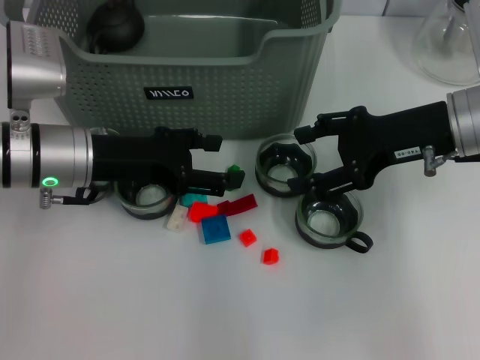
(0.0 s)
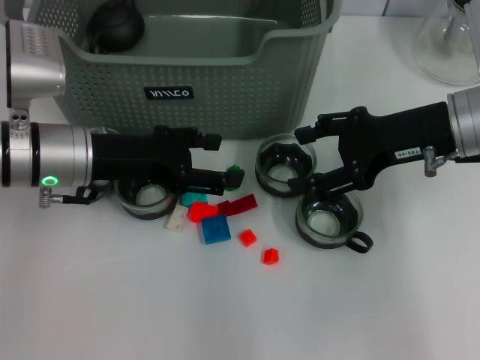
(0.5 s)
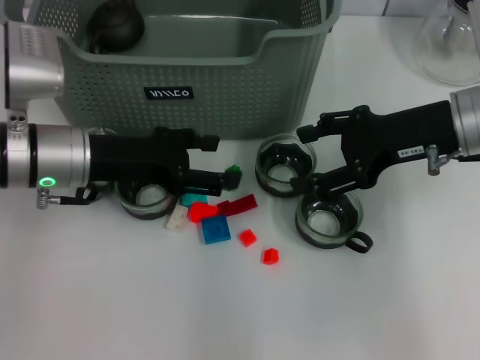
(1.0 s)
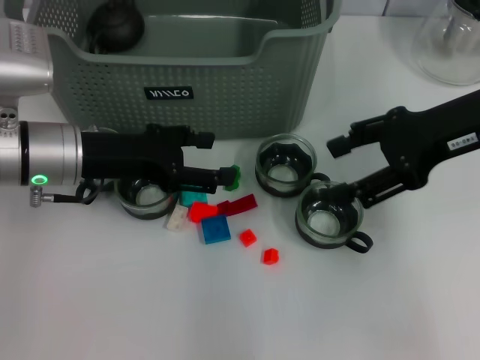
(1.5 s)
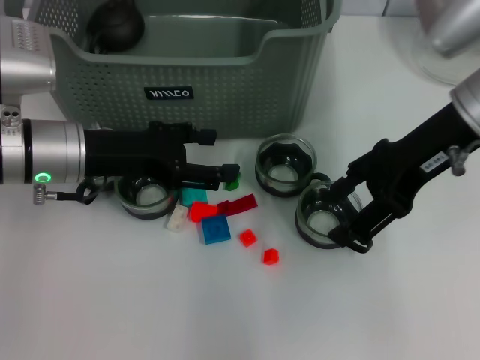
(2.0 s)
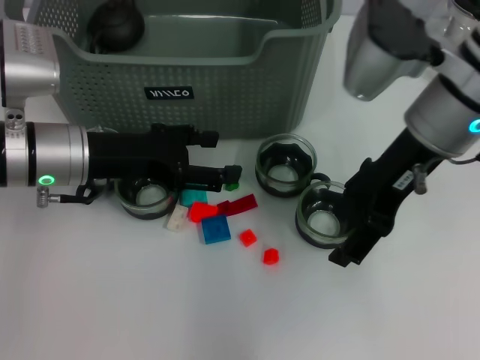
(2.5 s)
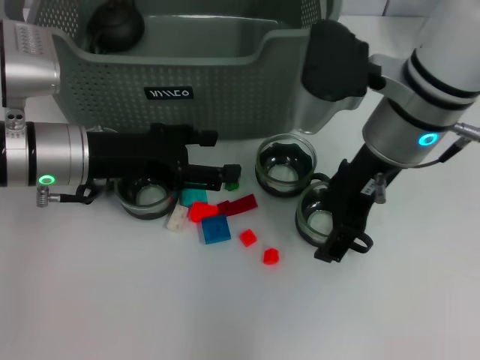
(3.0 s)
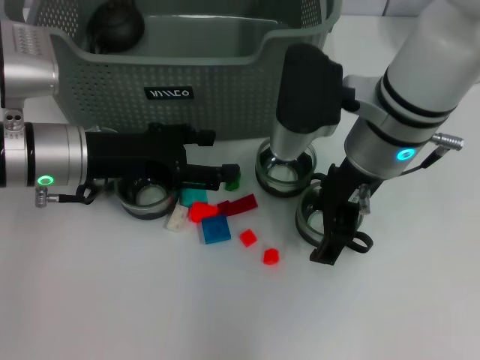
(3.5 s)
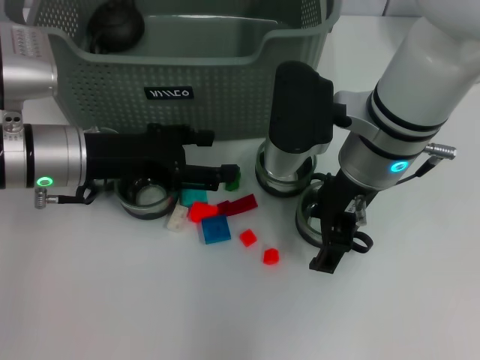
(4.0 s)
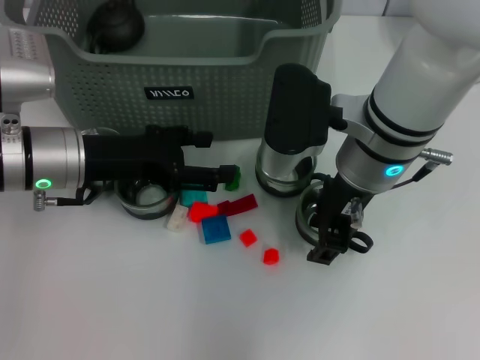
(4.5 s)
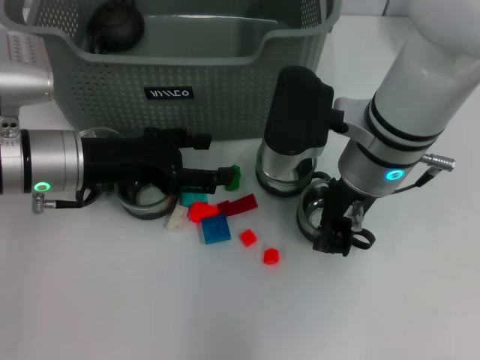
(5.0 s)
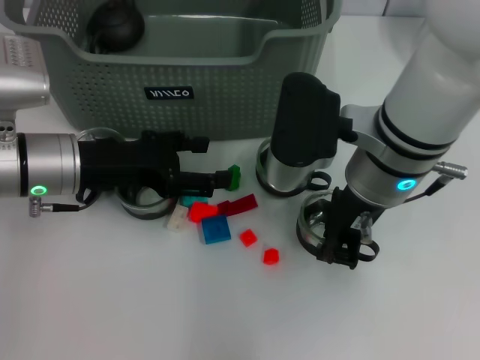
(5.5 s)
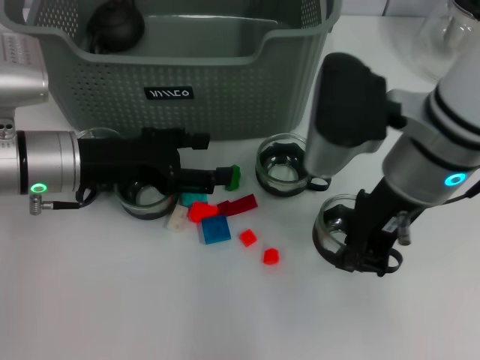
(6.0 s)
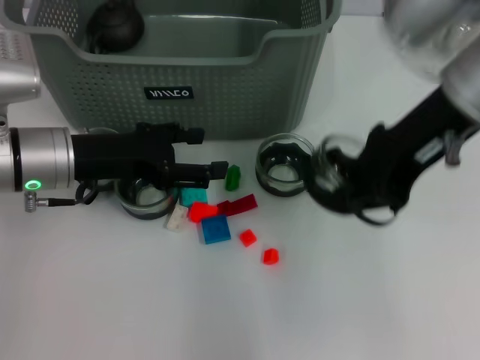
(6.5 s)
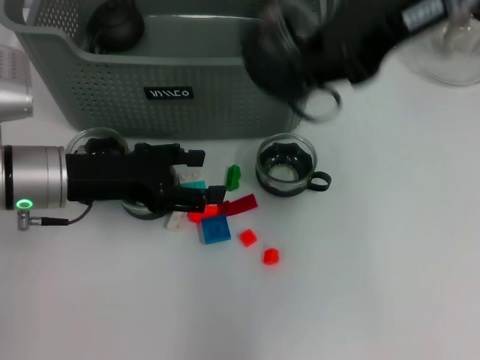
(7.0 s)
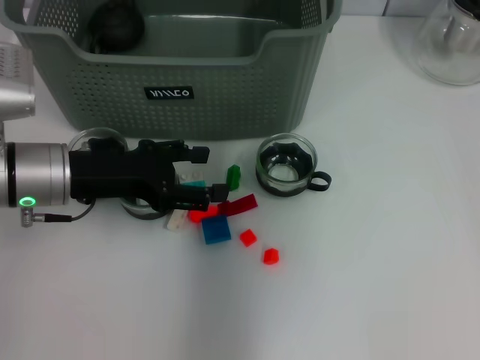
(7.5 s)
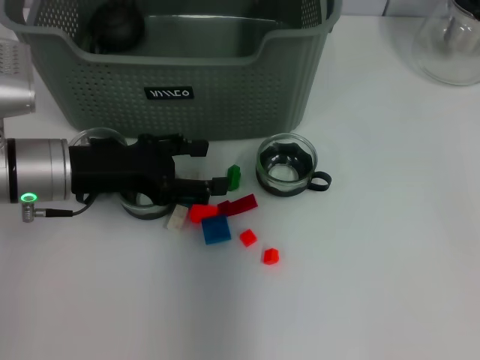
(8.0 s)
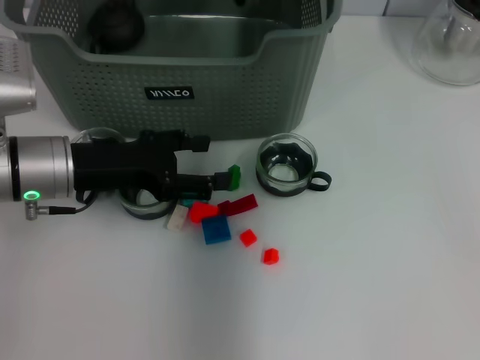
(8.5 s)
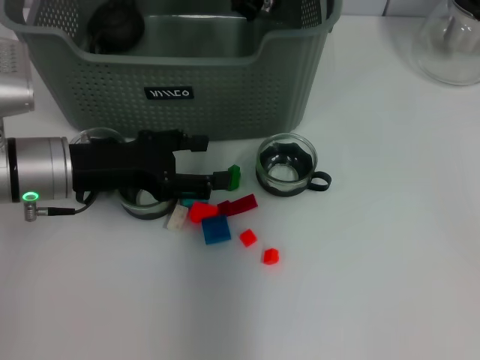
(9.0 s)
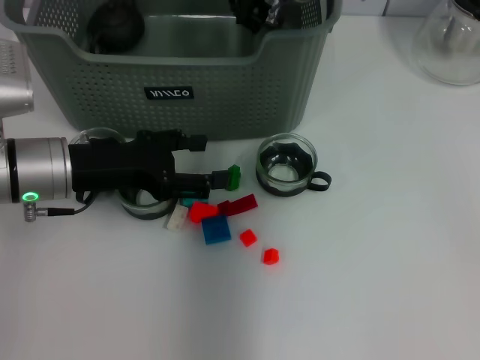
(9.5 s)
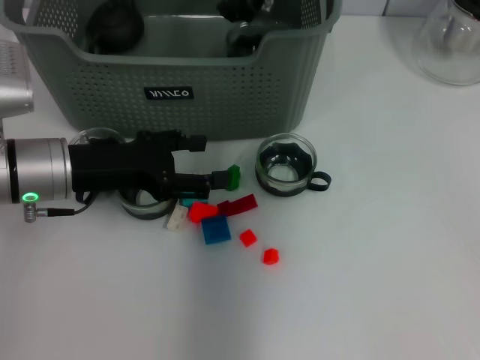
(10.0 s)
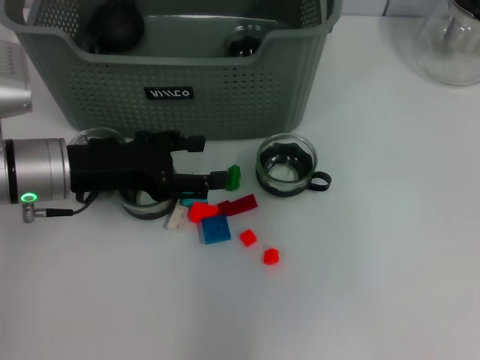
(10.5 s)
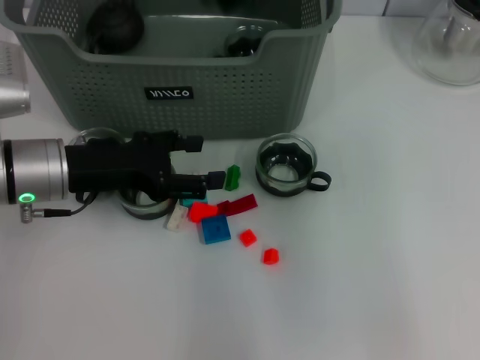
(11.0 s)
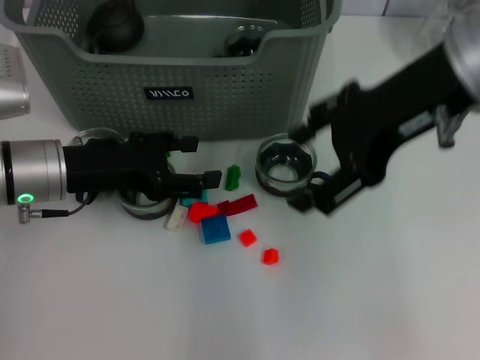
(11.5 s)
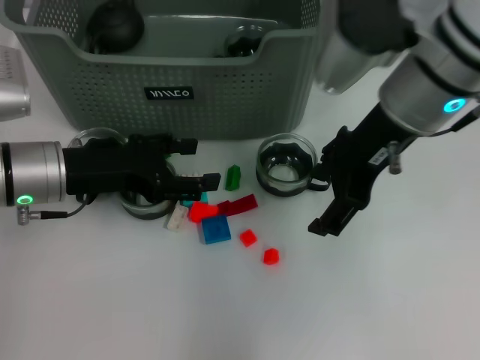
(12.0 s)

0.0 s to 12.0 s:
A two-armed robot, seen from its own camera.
Task of the whole recording: pick up the teacup on the table and place it into the storage bin, pick up the block on the table and place it into the storage bin.
Step, 0.0 to 5.0 s: Grasp the cup with right gripper.
Step, 5.5 to 10.0 s: Place the cup in the storage box with right gripper.
0.0 to 2.0 s: The right gripper is displaced upward by approximately 5 cm.
2.0 to 4.0 s: The right gripper goes some 10 cm to the left.
4.0 to 6.0 s: The right gripper closes up.
6.0 to 8.0 s: The right gripper heads forward, to the left and upward, covering some 20 cm.
8.0 to 10.0 s: There are only small adjustments of the grippers.
10.0 to 12.0 s: The right gripper heads backward and to the right, covering about 15 cm, and opens up.

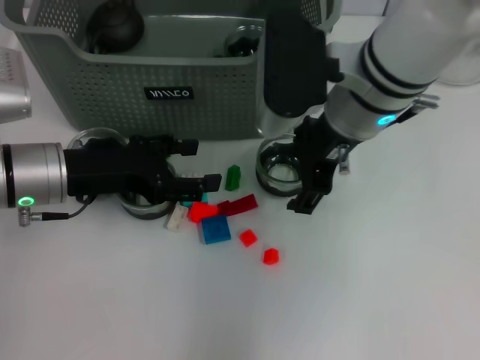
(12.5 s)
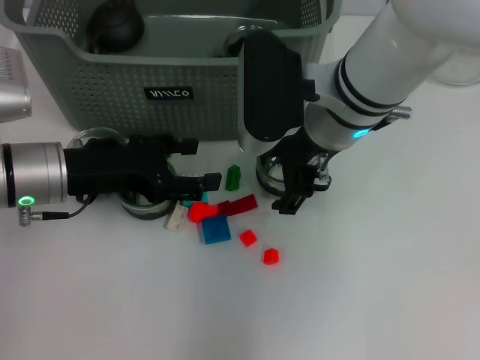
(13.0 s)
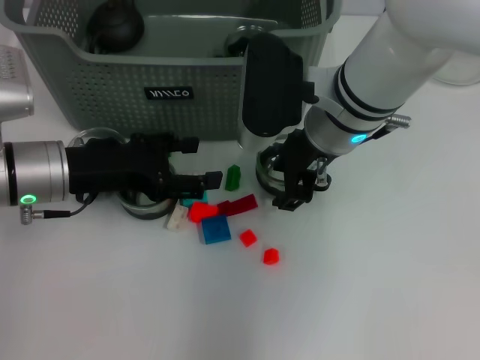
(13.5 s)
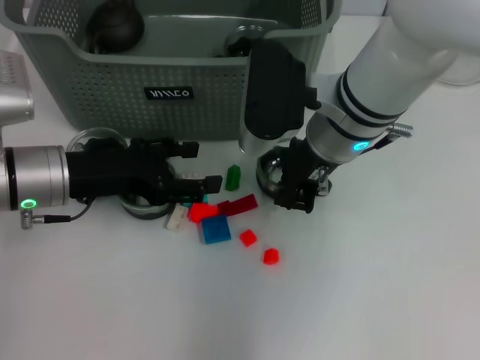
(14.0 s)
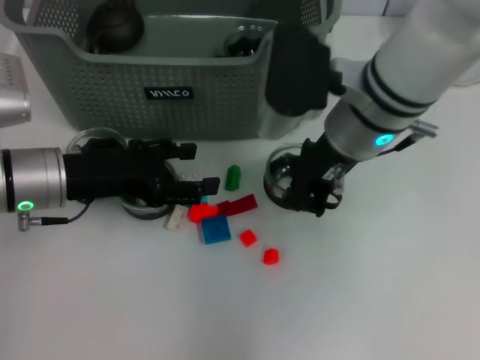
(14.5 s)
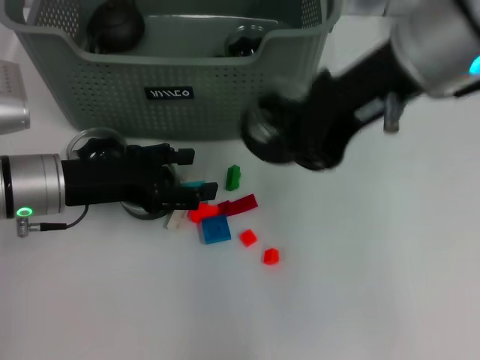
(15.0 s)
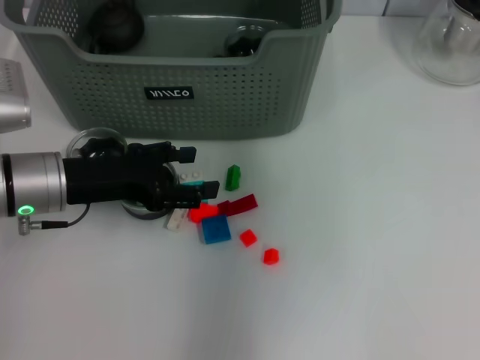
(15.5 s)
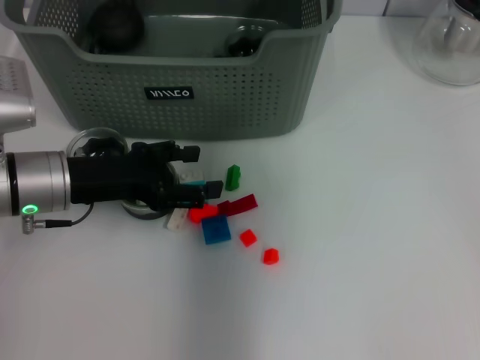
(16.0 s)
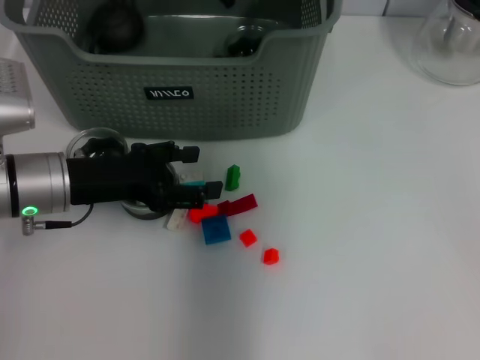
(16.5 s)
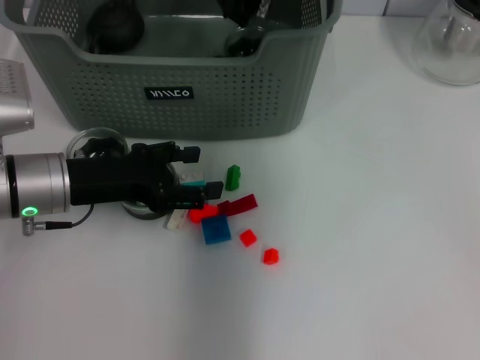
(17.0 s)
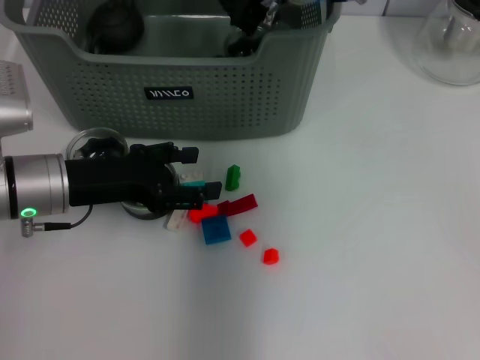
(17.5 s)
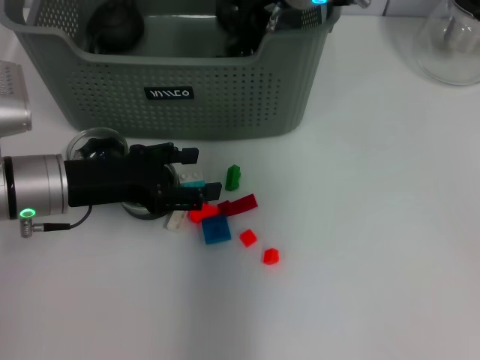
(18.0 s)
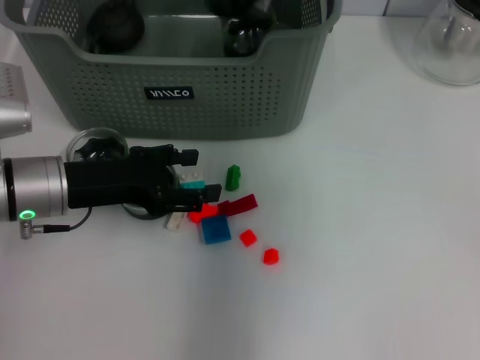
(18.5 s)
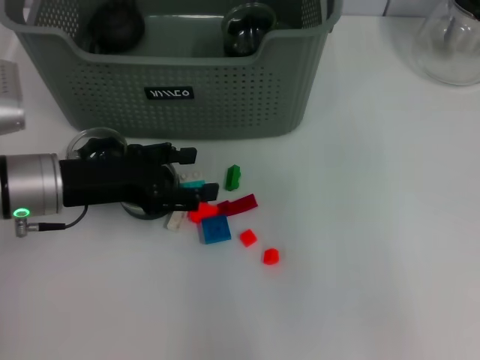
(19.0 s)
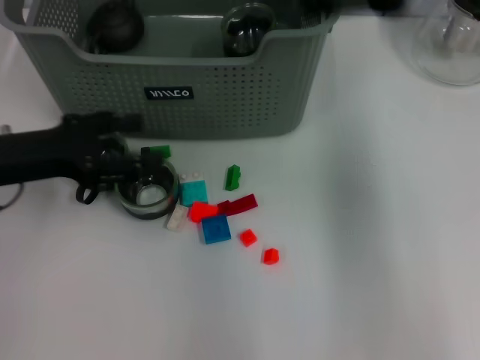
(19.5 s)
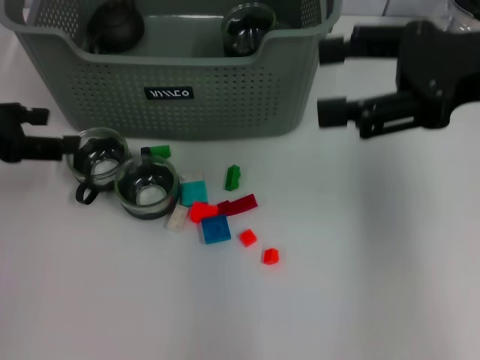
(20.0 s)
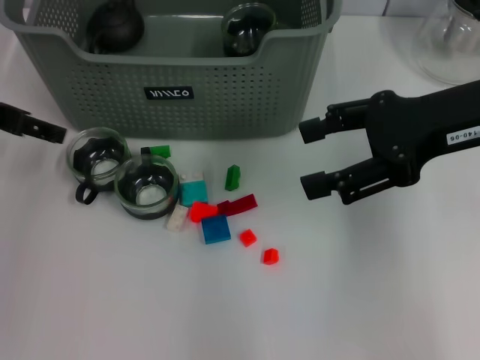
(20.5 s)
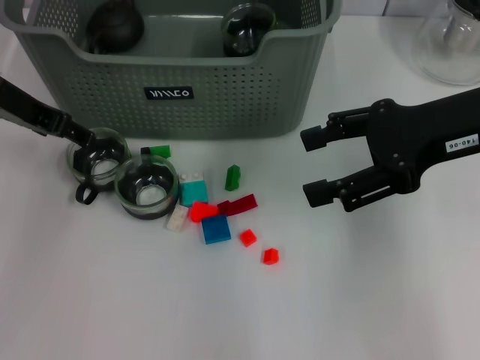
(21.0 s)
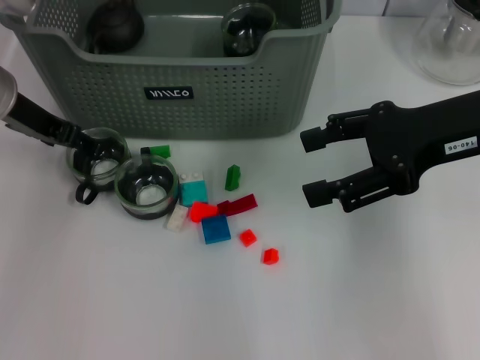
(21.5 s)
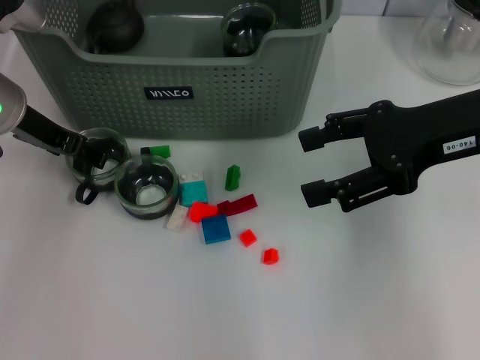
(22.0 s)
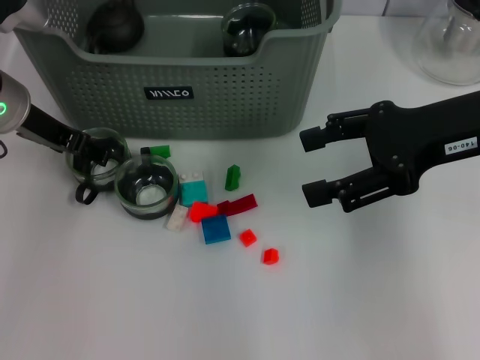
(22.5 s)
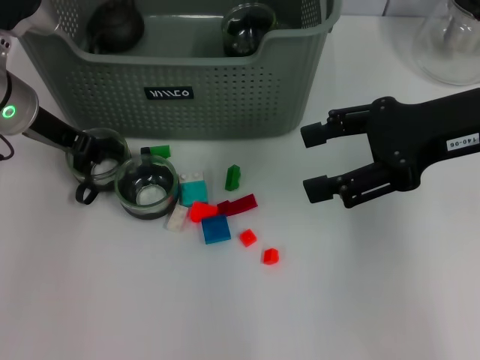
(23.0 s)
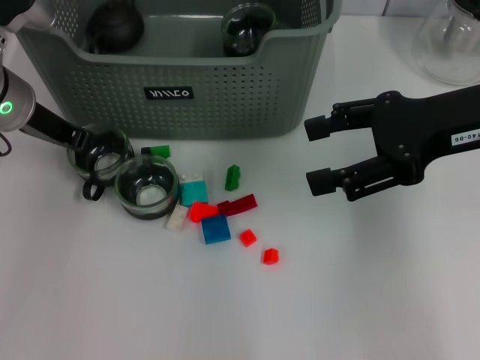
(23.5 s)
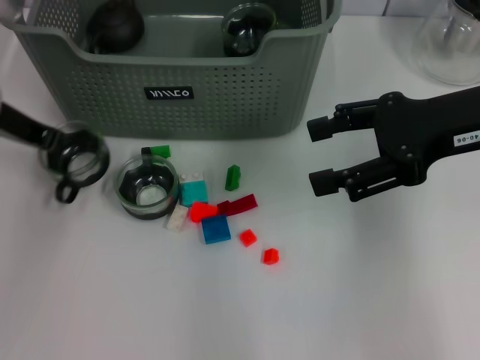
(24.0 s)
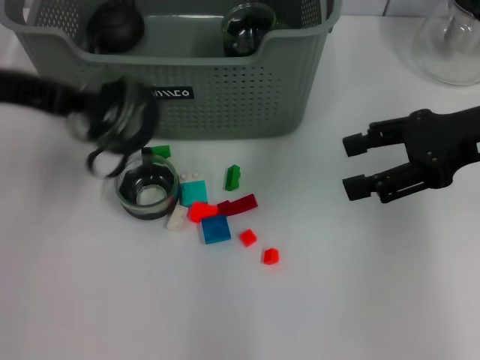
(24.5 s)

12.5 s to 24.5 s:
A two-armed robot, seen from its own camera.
Task of the whole recording: pick up the teacup on the table and place it into the storage bin, pick up the block on the table and place it into the storage bin.
Step, 14.5 to 18.0 s: Place the cup in the storage box with right gripper.
Step, 19.0 to 23.0 s: Grasp the cup with left gripper.
12.5 to 14.5 s: The right gripper closes.
14.5 to 16.5 s: The right gripper travels forward and to the left by roughly 10 cm, and reaches some 20 cm upward, then returns.
16.5 to 18.5 s: The right gripper opens its fingers.
18.5 to 20.5 s: The left gripper shifts roughly 15 cm upward and to the left. The right gripper goes roughly 20 cm to the right and backward, and opens.
20.5 to 22.5 s: The left gripper travels downward by roughly 5 cm.
22.5 to 24.5 s: The left gripper moves upward and backward, some 10 cm, and closes up.

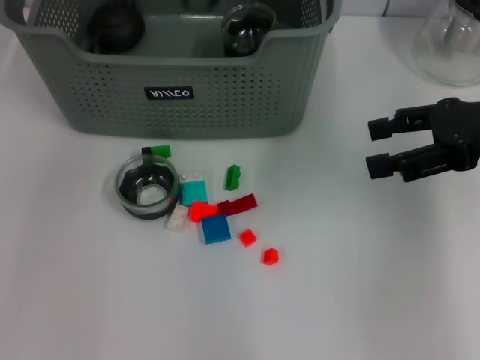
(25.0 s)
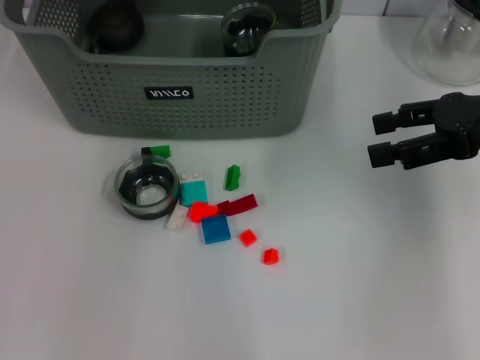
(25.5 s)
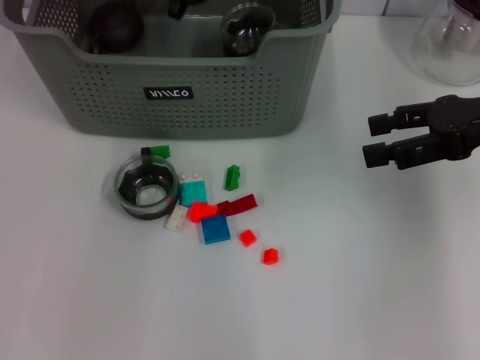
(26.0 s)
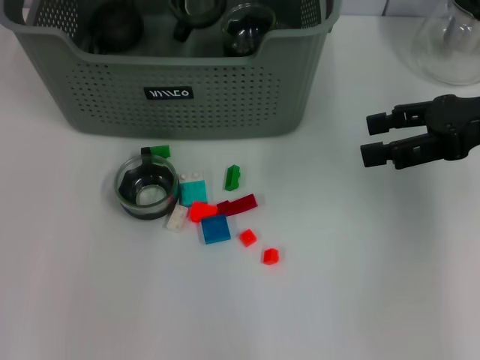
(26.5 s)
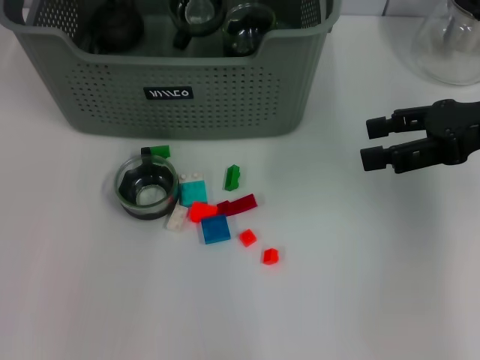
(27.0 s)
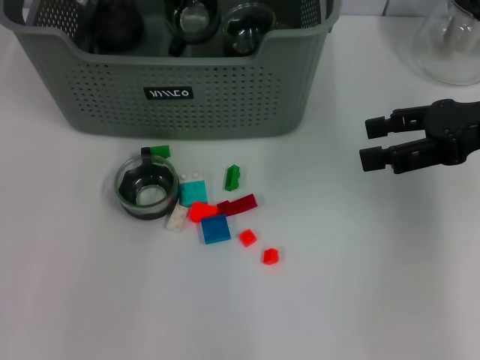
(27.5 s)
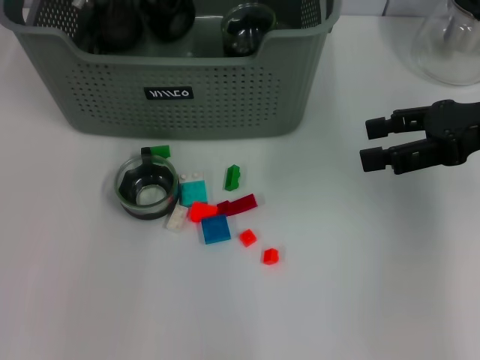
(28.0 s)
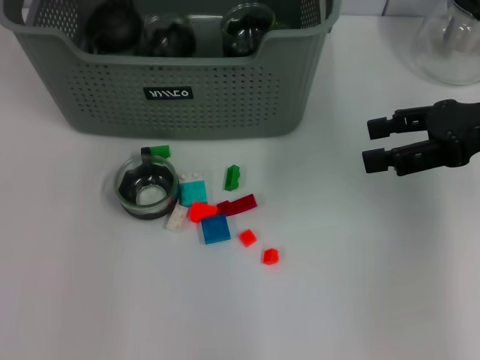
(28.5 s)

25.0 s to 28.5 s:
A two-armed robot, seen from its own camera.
Task of the whole recording: pick up the teacup on the table and place it into the storage bin, pick up the block on the table and place it into the storage bin.
Step, 25.0 to 28.5 s: Place the cup in the storage box with left gripper.
25.0 to 27.0 s: The left gripper heads downward, forward and to the right, covering roughly 15 cm.
27.0 to 28.5 s: The left gripper shifts roughly 10 cm upward, and opens its fingers.
